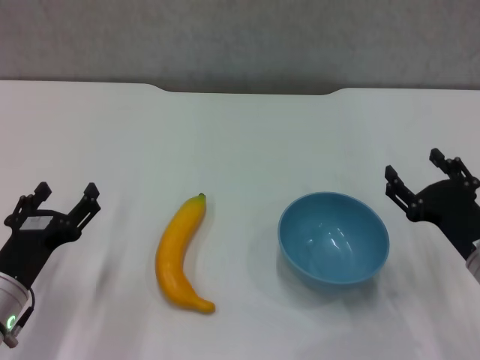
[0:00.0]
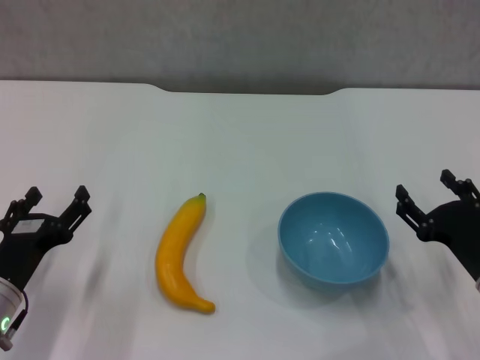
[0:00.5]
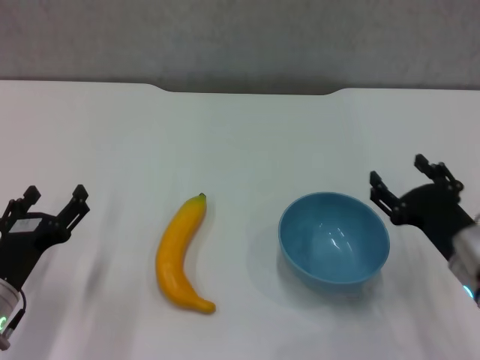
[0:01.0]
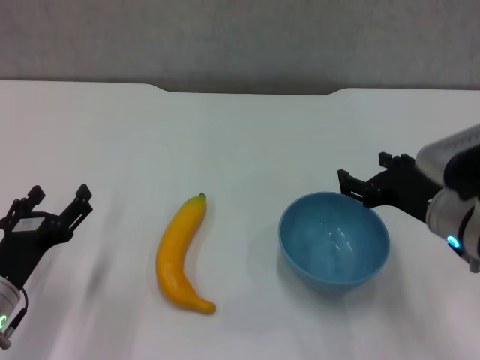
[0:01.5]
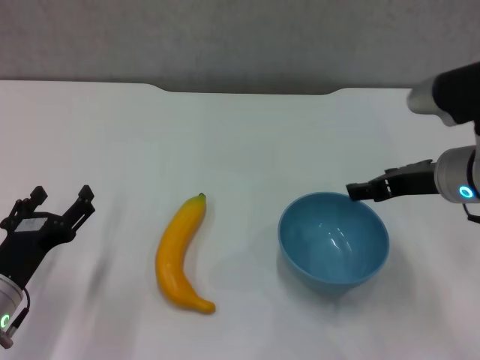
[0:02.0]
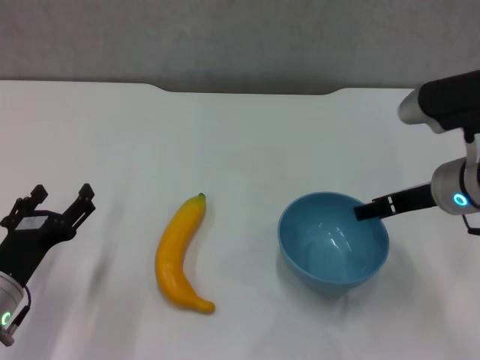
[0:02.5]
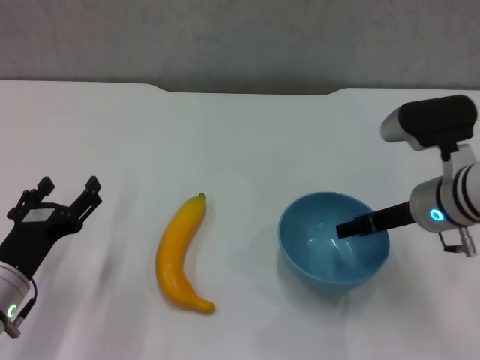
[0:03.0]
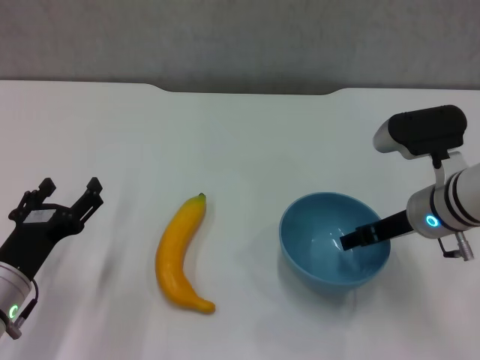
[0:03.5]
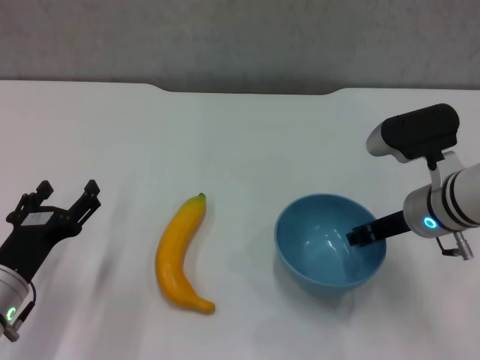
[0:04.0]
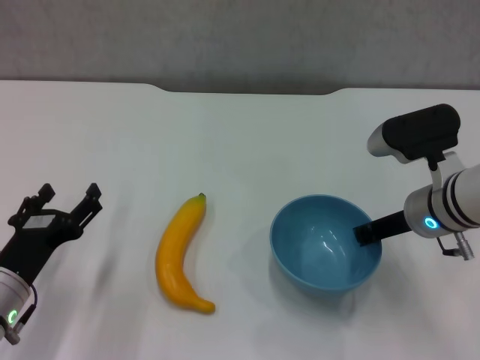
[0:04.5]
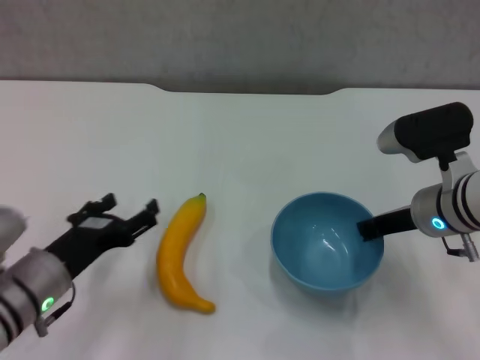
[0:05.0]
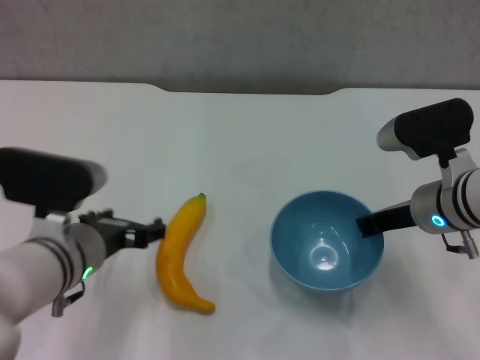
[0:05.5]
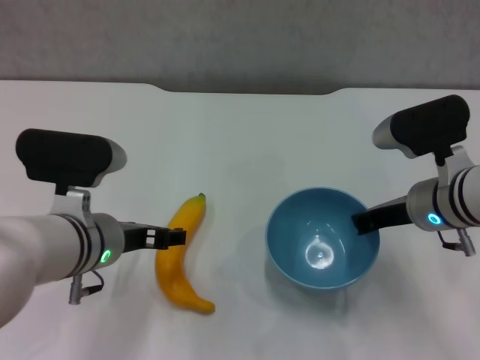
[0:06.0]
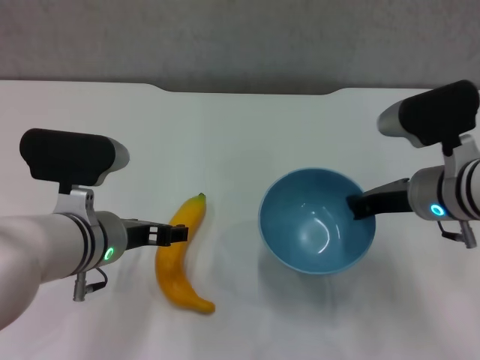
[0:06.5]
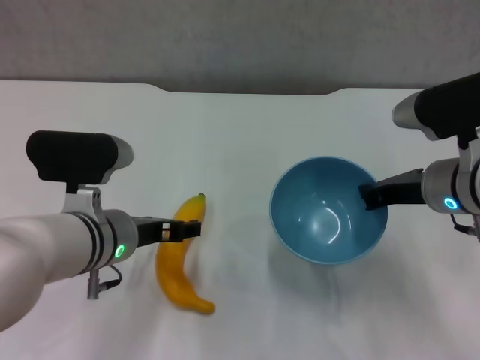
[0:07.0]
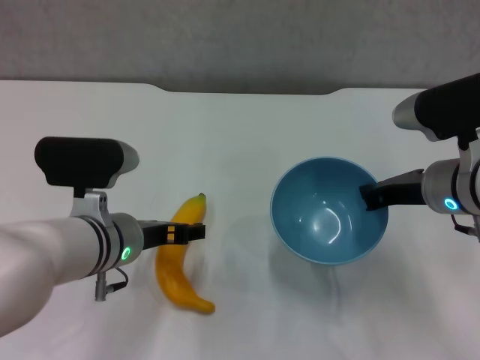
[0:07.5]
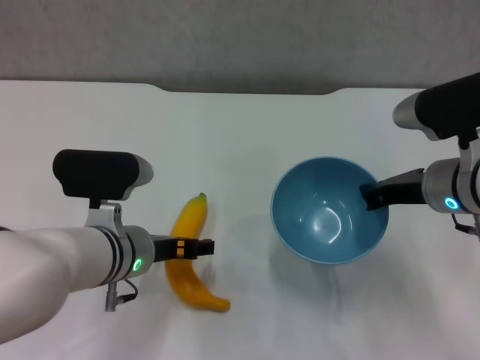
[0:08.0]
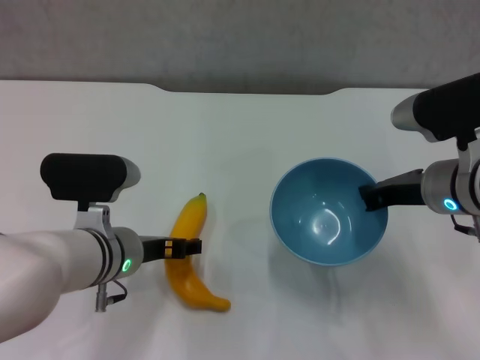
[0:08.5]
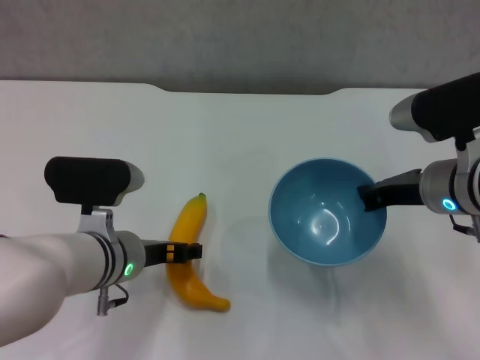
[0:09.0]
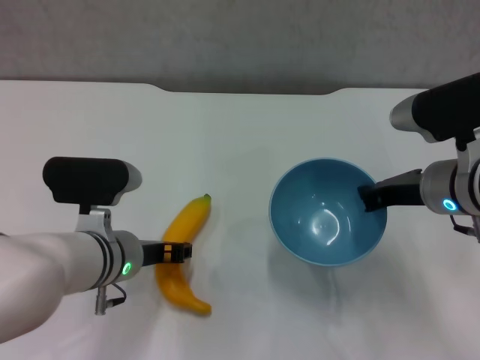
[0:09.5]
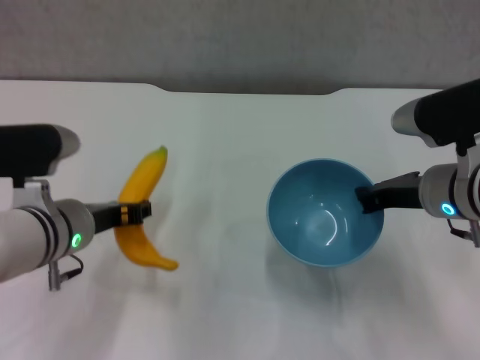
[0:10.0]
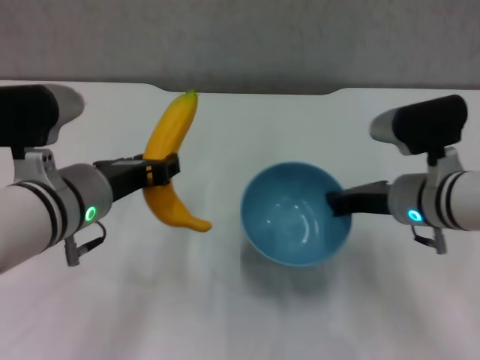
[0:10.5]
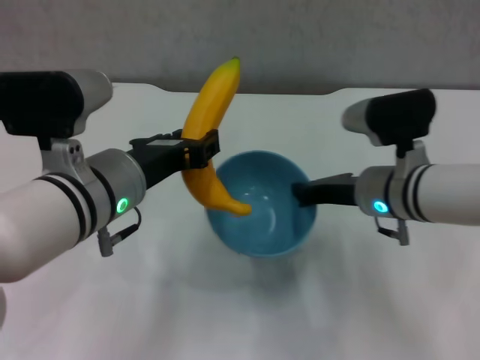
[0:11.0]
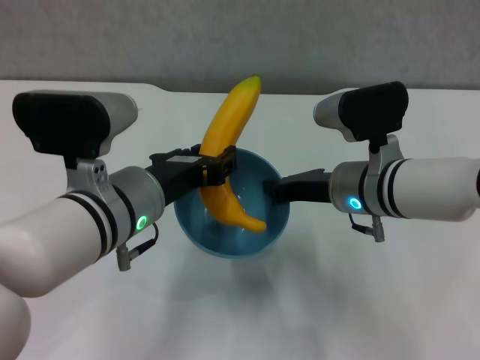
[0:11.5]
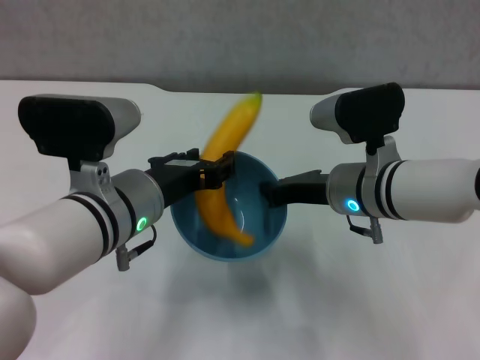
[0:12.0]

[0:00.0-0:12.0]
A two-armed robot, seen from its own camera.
Step, 0:00.0 to 0:04.5: Grasp the blue bowl with right gripper.
Step, 0:05.0 to 0:06.5: Lift the blue bowl with right gripper.
Step, 0:07.0 to 0:09.0: Grasp the banana with left gripper.
0:00.0 to 0:02.0: The right gripper is displaced upward and forward by roughly 15 cm.
0:02.0 to 0:04.0: The right gripper shifts approximately 5 cm downward.
0:04.0 to 0:06.0: The left gripper is displaced to the right, upward and forward by approximately 15 cm. The right gripper closes.
0:08.0 to 0:10.0: The left gripper is displaced to the left by approximately 5 cm, and closes up.
0:10.0 to 0:12.0: The right gripper is displaced to the left by approximately 10 cm, while the left gripper moves to the right, roughly 5 cm.

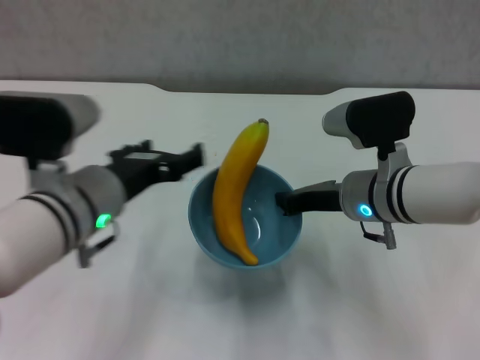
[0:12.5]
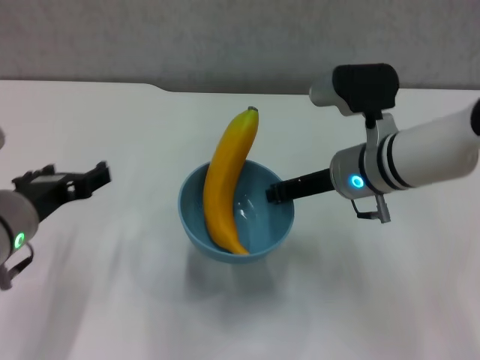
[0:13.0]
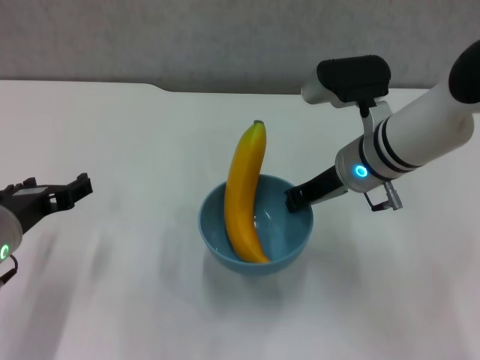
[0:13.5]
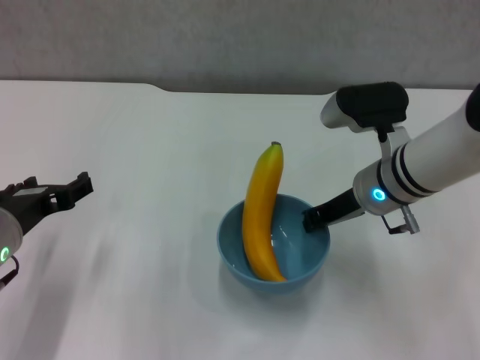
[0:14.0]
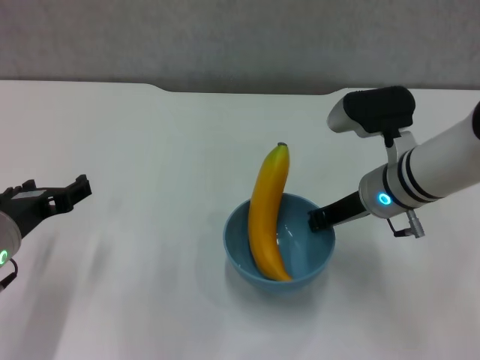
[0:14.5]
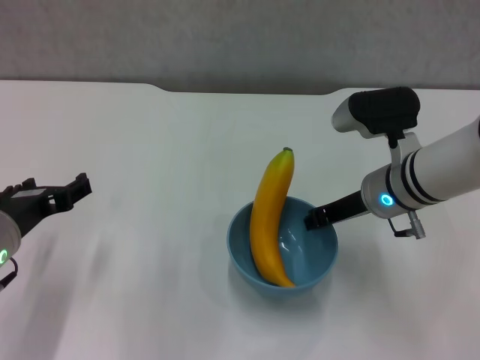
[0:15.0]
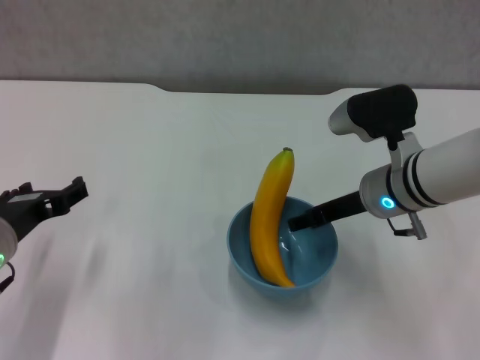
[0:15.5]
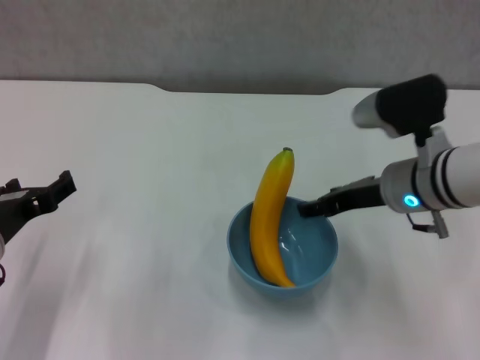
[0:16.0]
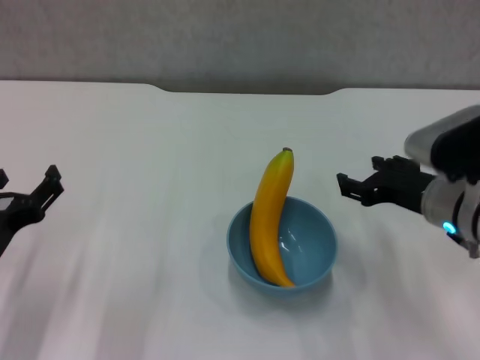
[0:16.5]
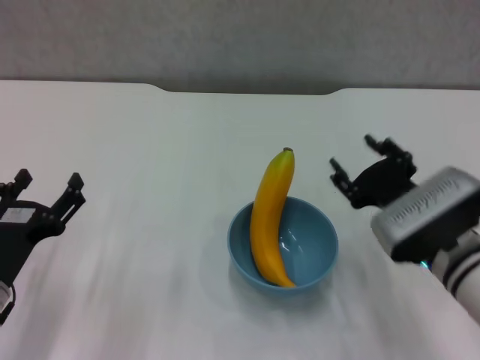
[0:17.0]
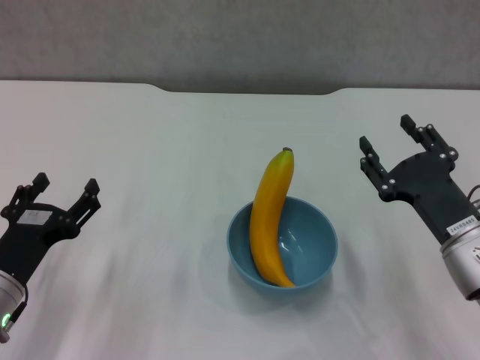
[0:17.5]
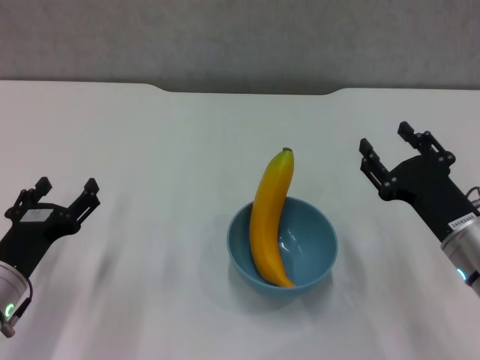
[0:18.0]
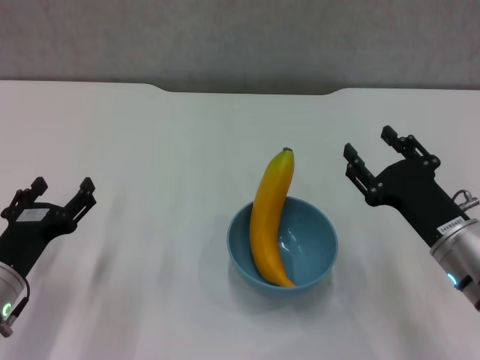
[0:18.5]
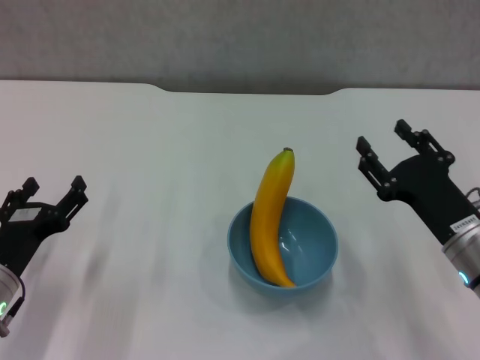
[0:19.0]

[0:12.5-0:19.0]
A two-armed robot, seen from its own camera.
Step, 0:12.5 to 0:15.5: Place the bowl on the table with right gripper.
0:12.5 to 0:14.5: The left gripper goes roughly 10 cm to the left.
0:14.5 to 0:17.0: The right gripper is displaced backward by about 10 cm, and opens its fingers, while the left gripper heads downward, covering about 5 cm.
